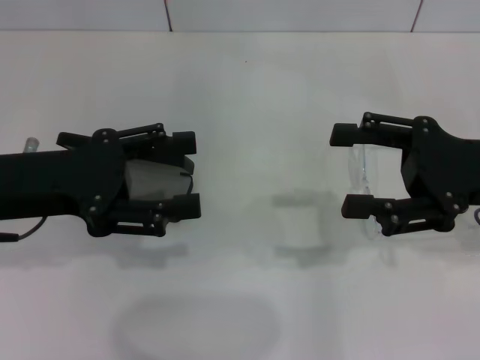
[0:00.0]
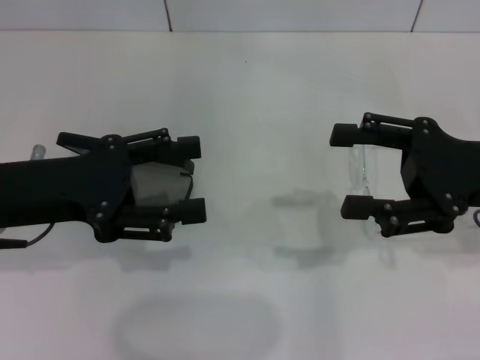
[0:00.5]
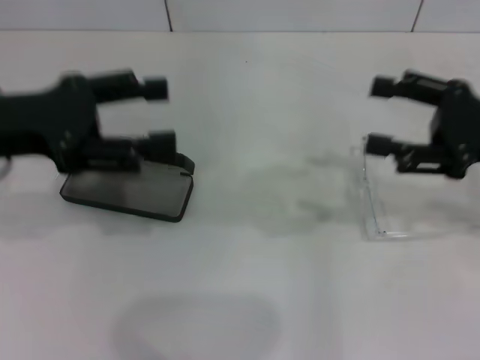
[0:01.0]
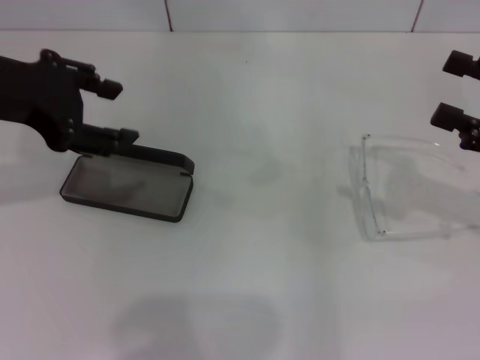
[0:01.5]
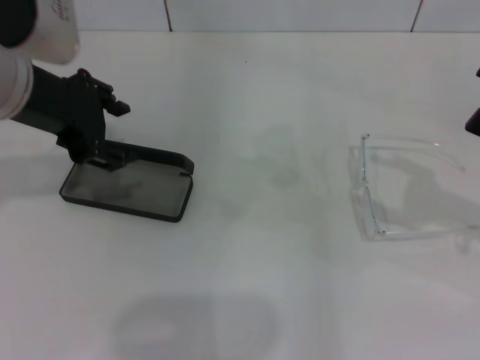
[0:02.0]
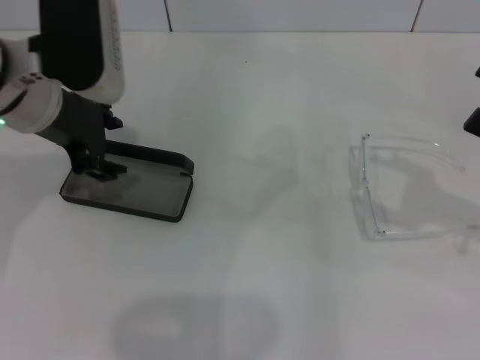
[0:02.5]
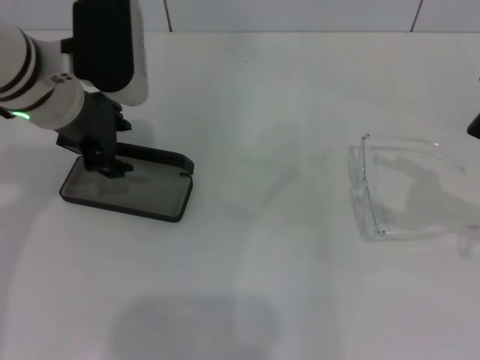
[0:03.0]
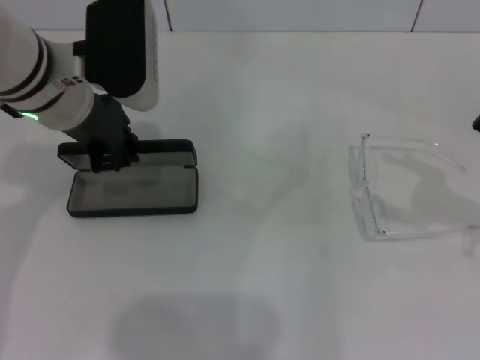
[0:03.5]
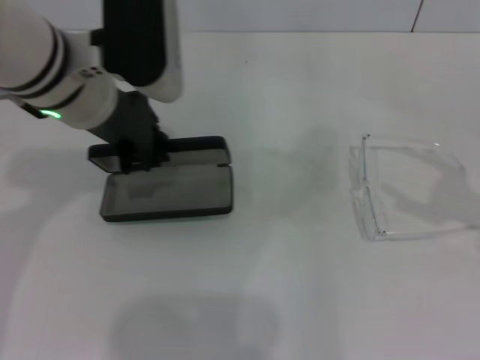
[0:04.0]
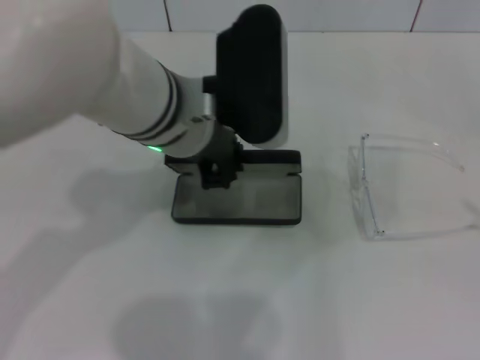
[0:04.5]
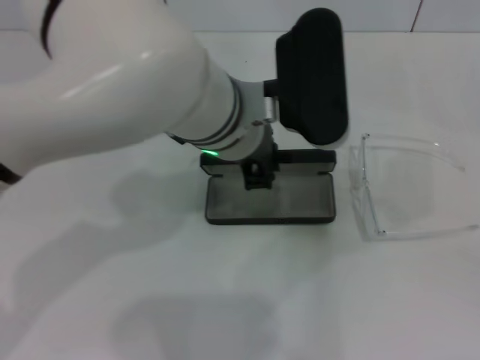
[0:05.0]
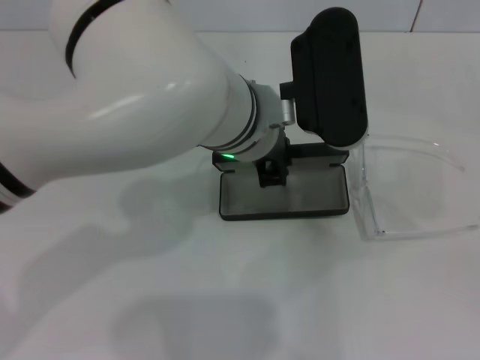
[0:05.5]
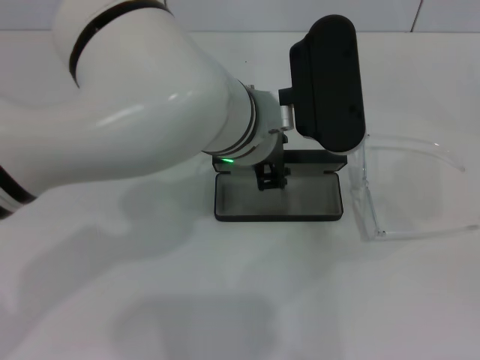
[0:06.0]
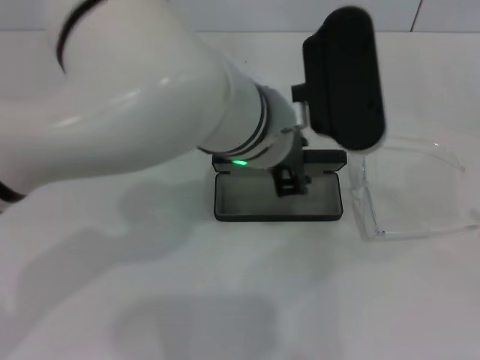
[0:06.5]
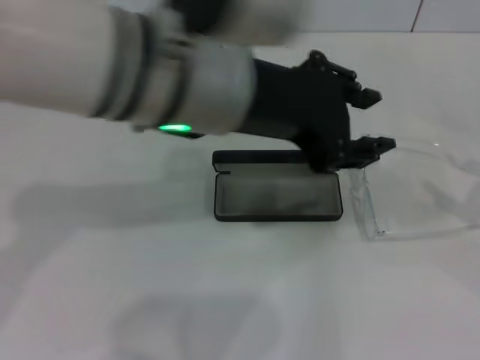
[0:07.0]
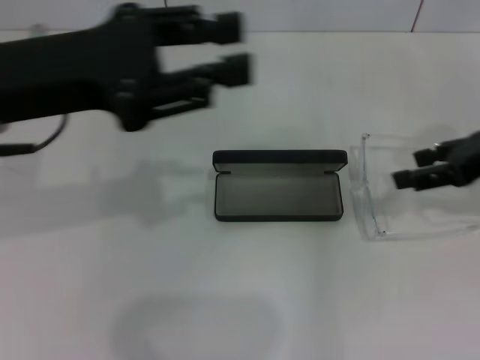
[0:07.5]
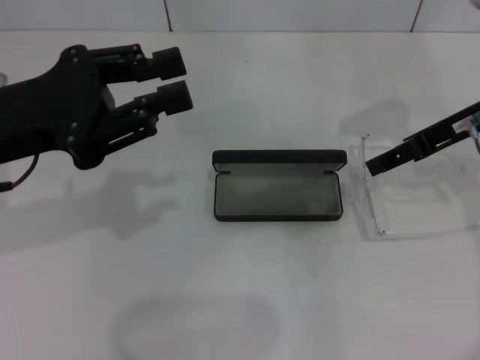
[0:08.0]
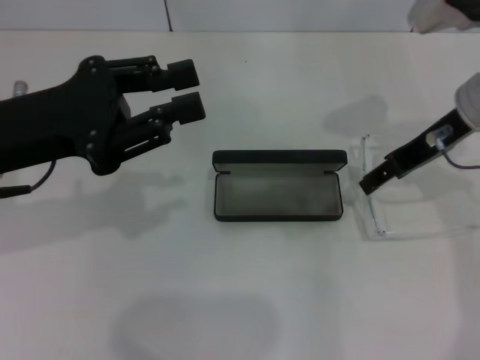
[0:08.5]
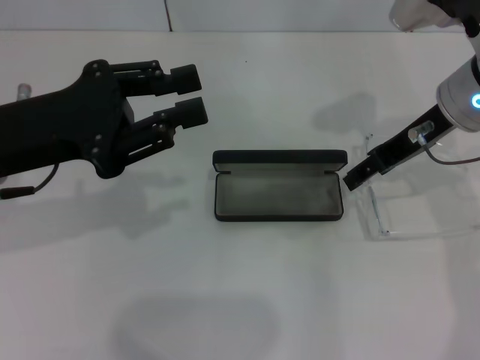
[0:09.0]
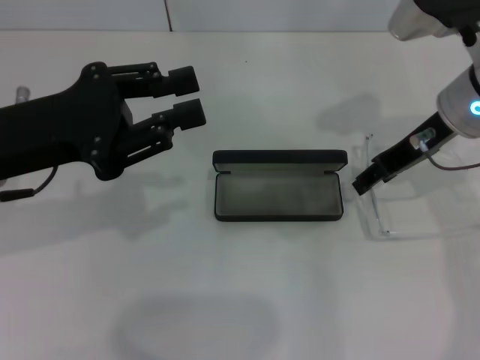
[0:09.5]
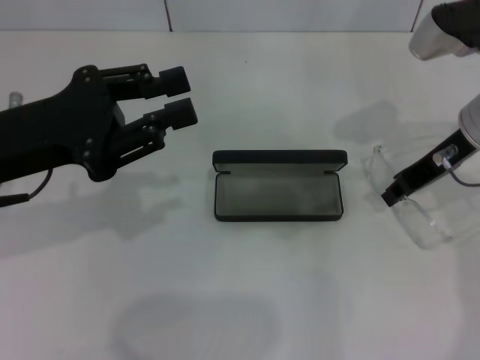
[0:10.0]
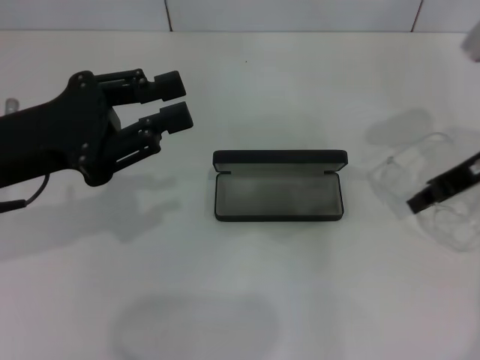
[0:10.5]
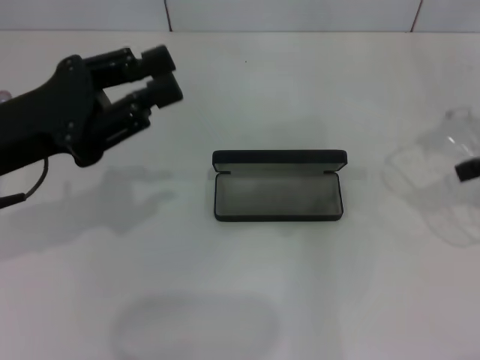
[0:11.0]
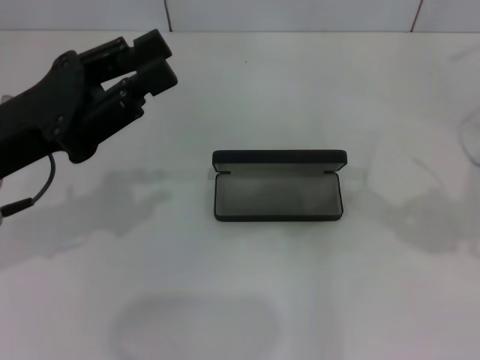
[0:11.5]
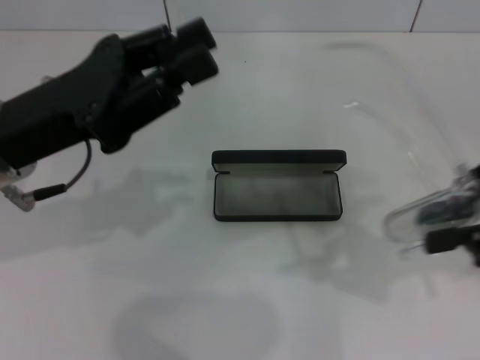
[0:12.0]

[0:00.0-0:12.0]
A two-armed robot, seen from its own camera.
Step, 0:00.0 to 0:03.0: Grab the glasses case with your left hand.
Step, 0:04.0 to 0:06.0: Place the glasses case in the center of the table with your left hand.
Step, 0:06.5 to 0:10.0: Grab the eyeglass frame with your right hand.
0:00.0 to 0:02.0: The right gripper moves to the right, about 10 cm. Meanwhile the left gripper travels upward and forward by roughly 10 cm.
0:02.0 to 0:04.0: The left gripper moves to the right, approximately 5 cm, and closes up.
0:04.0 to 0:06.0: The left gripper is displaced to the right by about 15 cm; the right gripper travels backward and to the right by approximately 10 cm.
0:06.0 to 0:08.0: The right gripper goes roughly 30 cm forward and to the left, while the left gripper travels to the left by about 25 cm.
0:08.0 to 0:10.0: The right gripper moves roughly 5 cm, and closes.
0:10.0 to 0:12.0: The right gripper goes approximately 15 cm backward, to the right and upward.

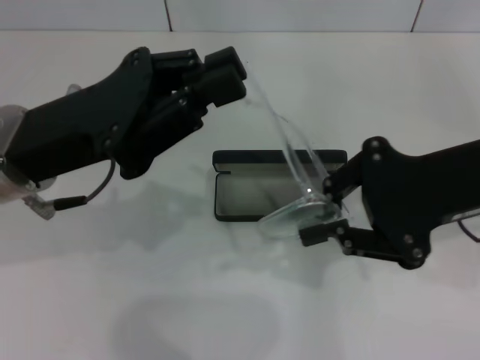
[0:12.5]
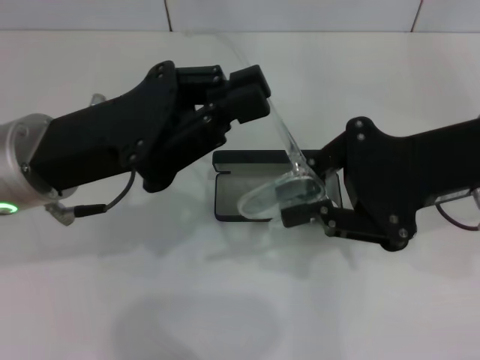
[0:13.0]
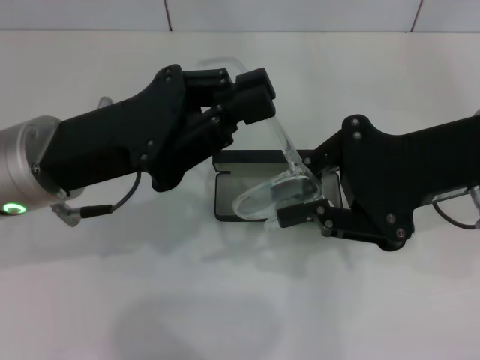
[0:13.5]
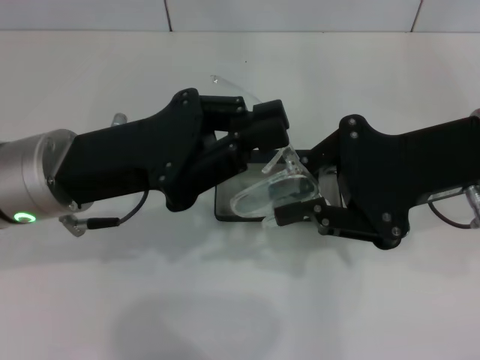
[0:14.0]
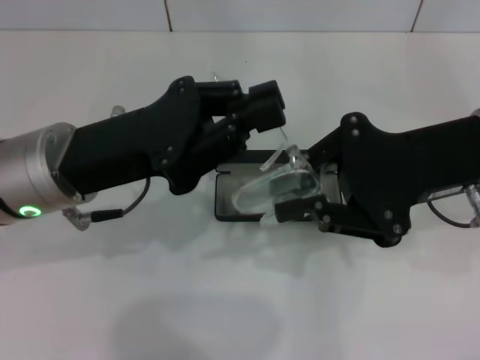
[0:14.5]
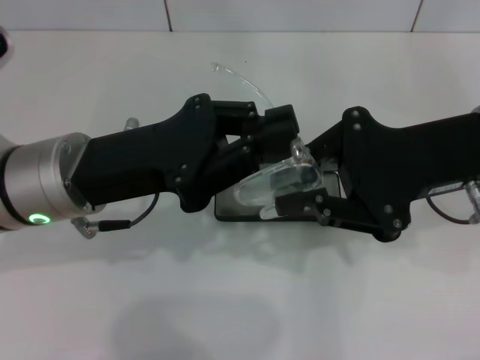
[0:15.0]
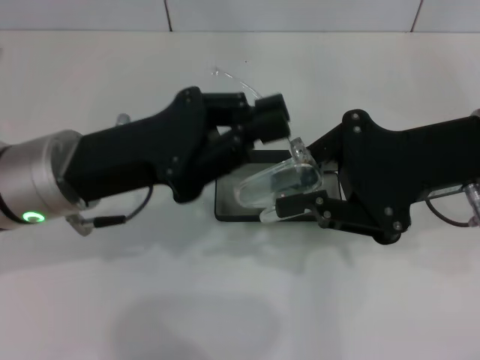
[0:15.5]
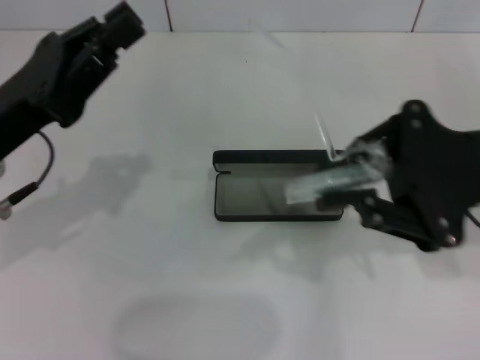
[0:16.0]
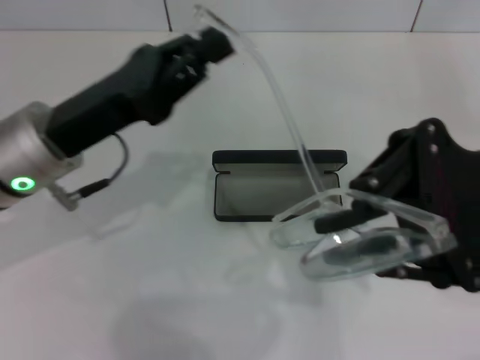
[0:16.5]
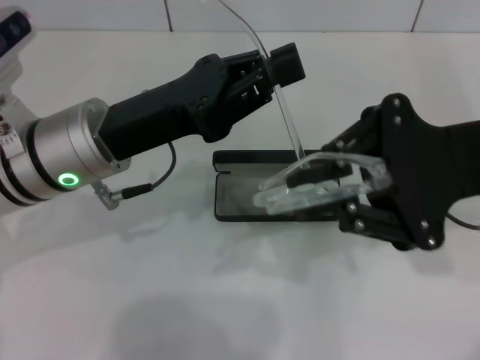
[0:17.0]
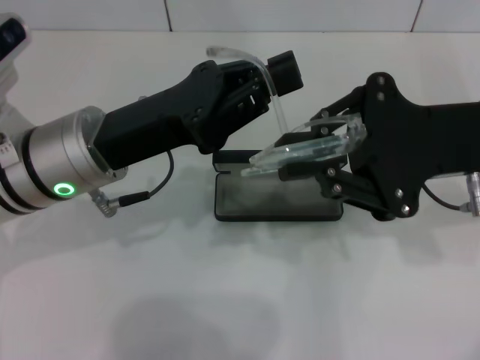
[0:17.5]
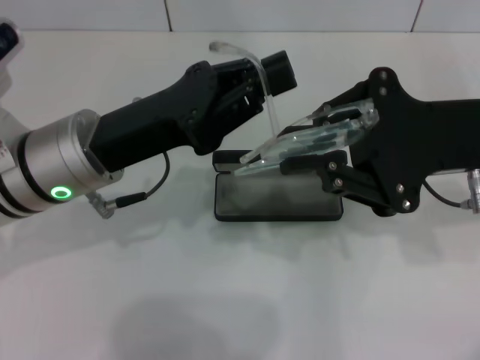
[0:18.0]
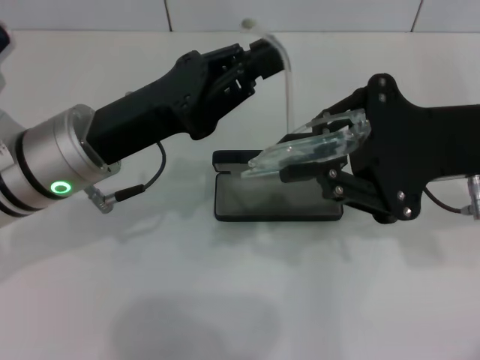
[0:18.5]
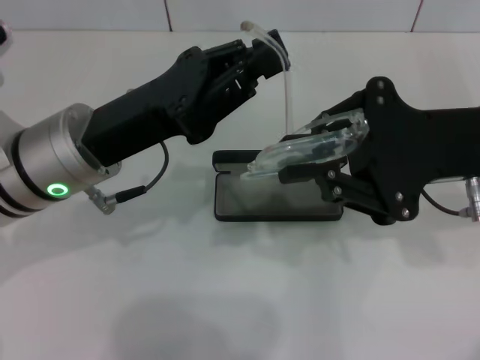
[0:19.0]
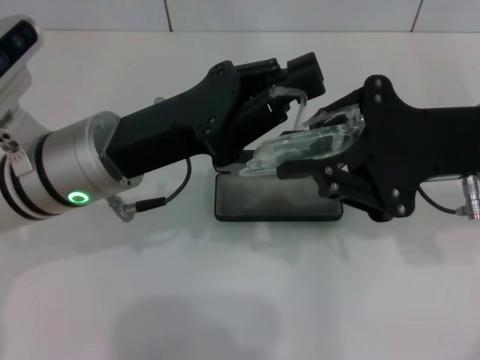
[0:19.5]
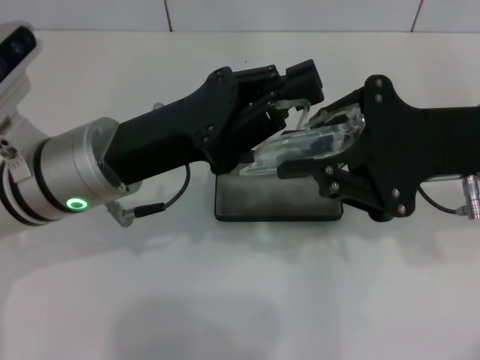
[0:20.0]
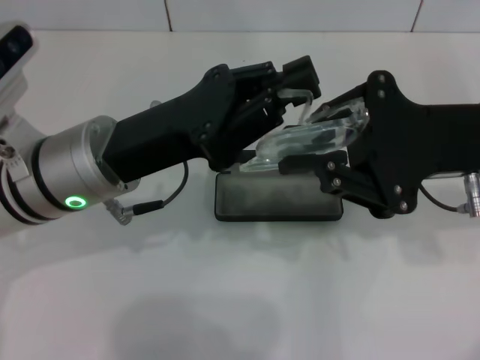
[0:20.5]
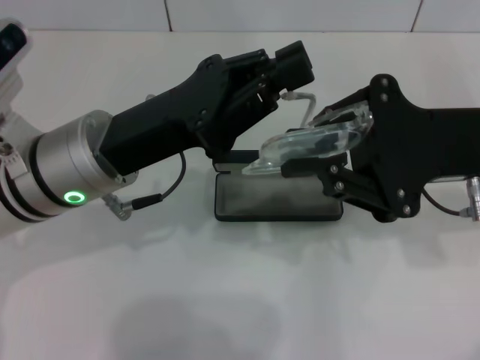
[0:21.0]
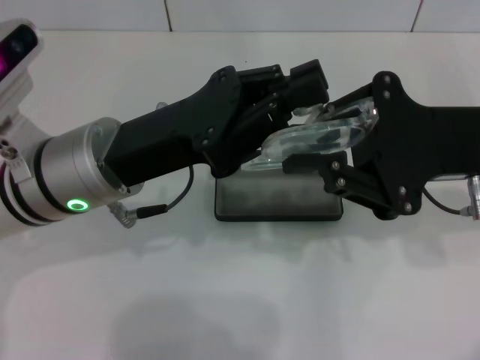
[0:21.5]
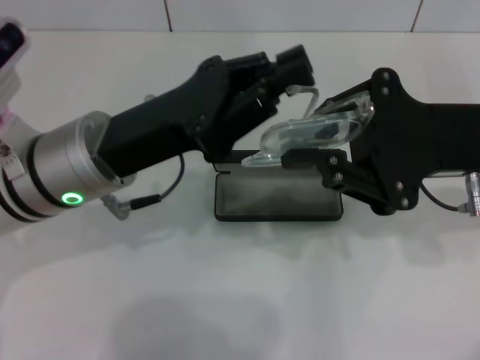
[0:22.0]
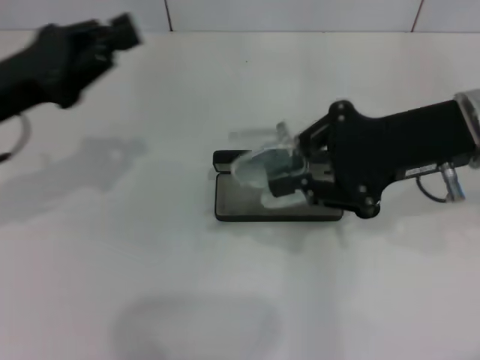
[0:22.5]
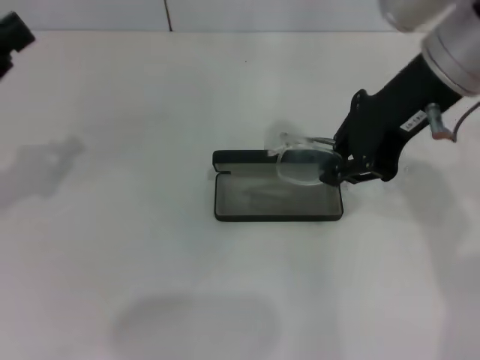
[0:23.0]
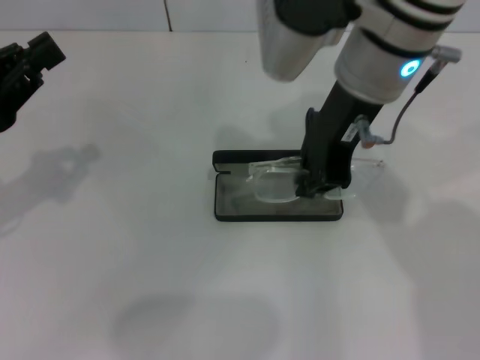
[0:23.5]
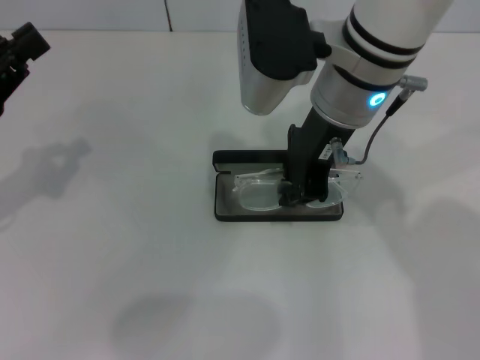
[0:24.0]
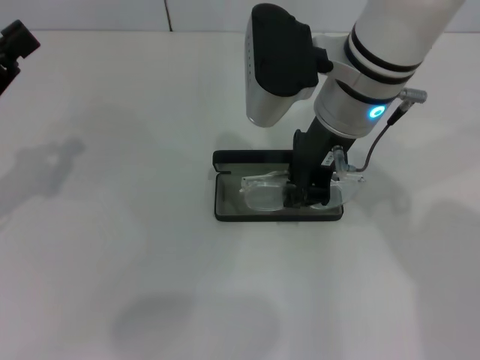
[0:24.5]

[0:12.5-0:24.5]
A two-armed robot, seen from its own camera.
Step, 0:12.5 to 0:21.5: Lift the glasses with your right hand.
0:20.5 to 0:22.5: The left gripper travels to the left by approximately 15 cm.
0:22.5 to 0:24.5: The left gripper moves to the left, about 5 cm, while the right gripper heads to the left, covering roughly 15 cm.

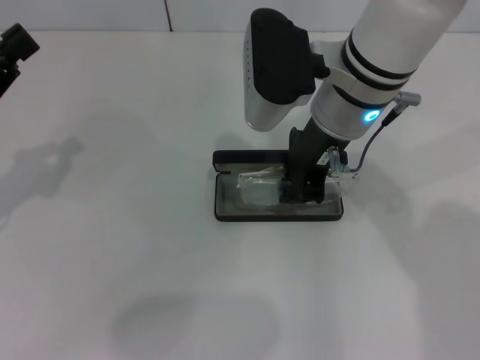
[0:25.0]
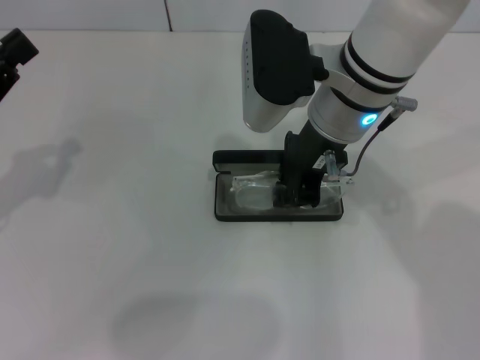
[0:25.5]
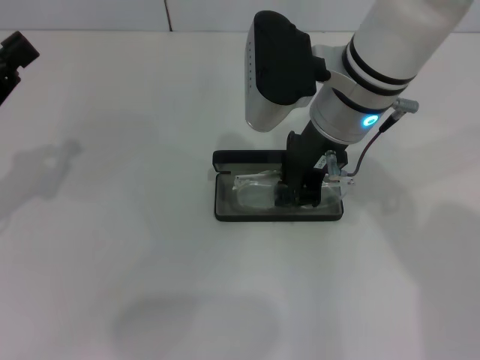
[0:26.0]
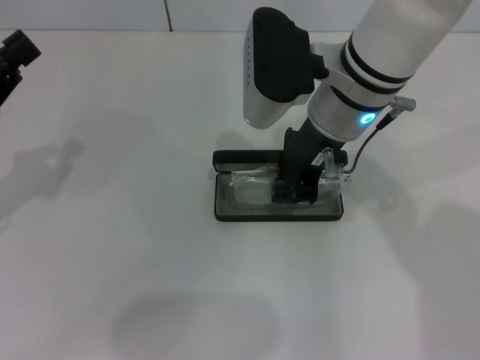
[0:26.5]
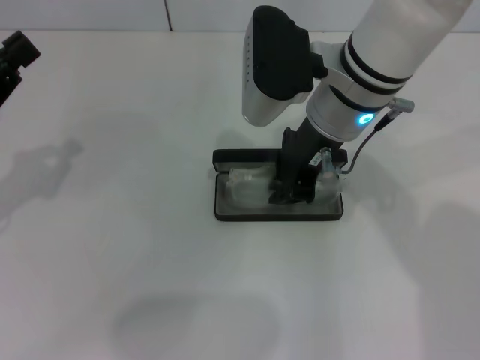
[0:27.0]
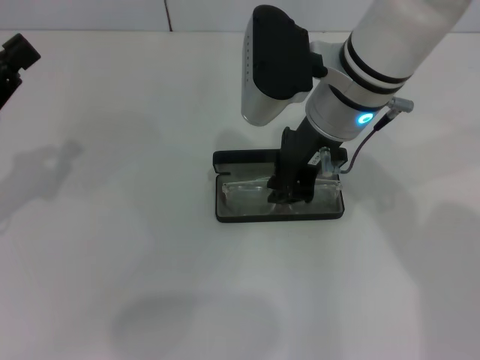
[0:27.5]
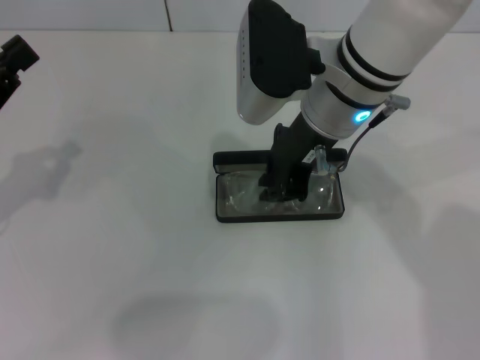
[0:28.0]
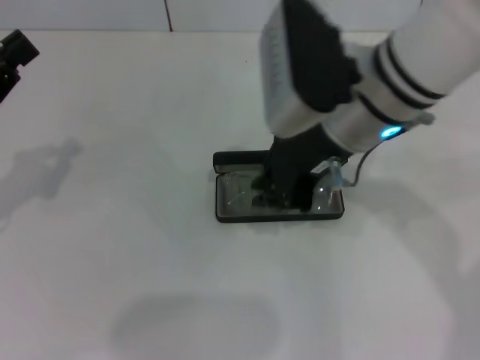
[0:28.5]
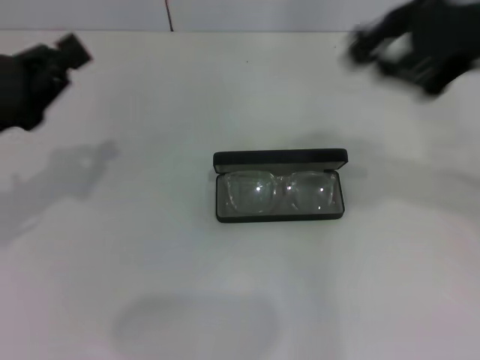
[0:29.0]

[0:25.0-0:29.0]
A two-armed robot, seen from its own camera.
Step, 0:25.0 to 0:28.0: Put the glasses into the case with your right hand.
0:25.0 to 0:27.0: The two grippers keep their place.
0:27.0 to 0:29.0: The right gripper heads to the right, upward and backward, covering approximately 20 cm.
